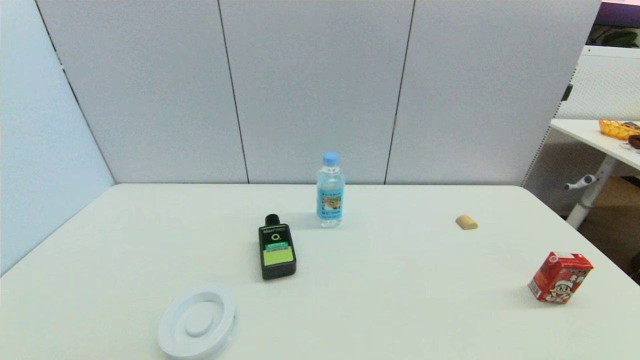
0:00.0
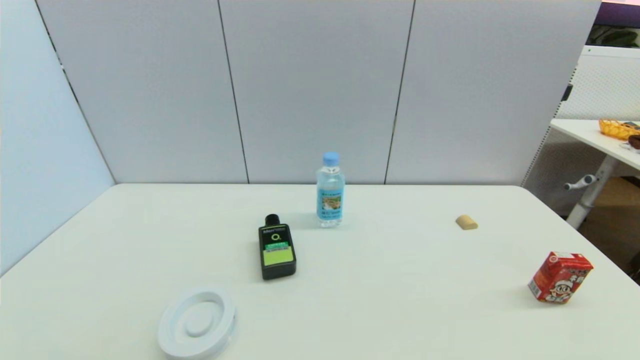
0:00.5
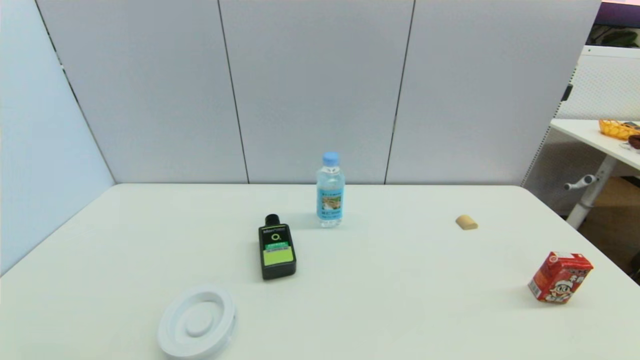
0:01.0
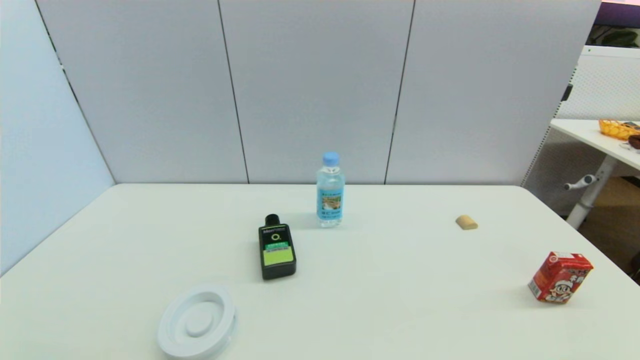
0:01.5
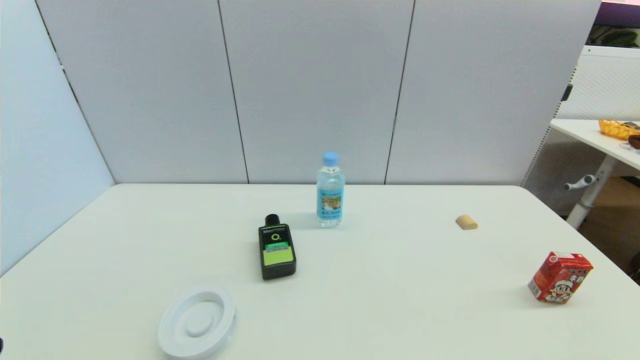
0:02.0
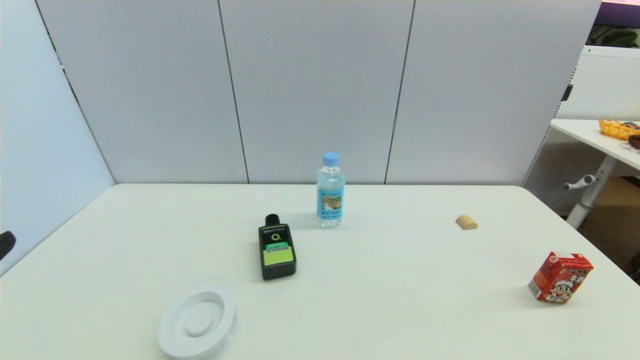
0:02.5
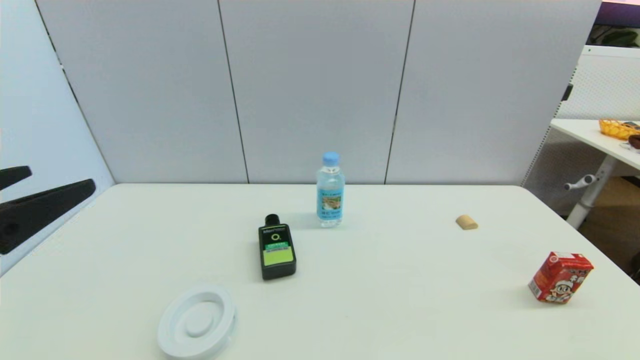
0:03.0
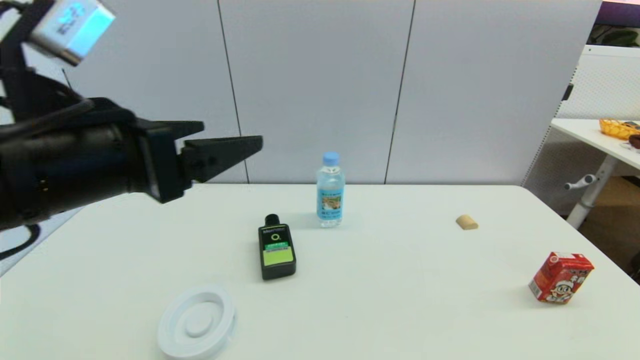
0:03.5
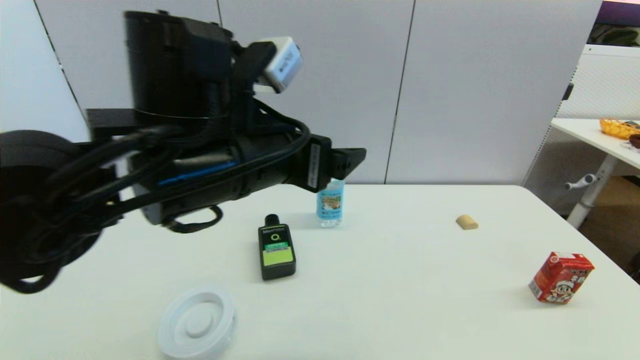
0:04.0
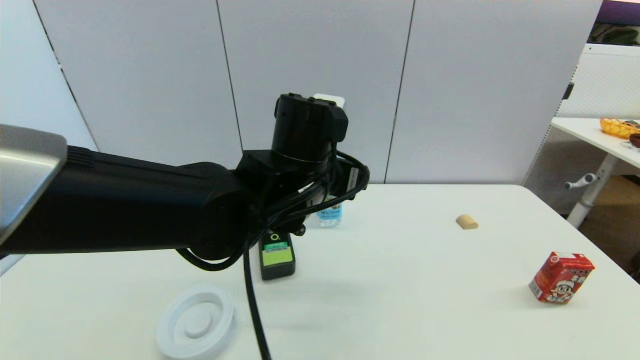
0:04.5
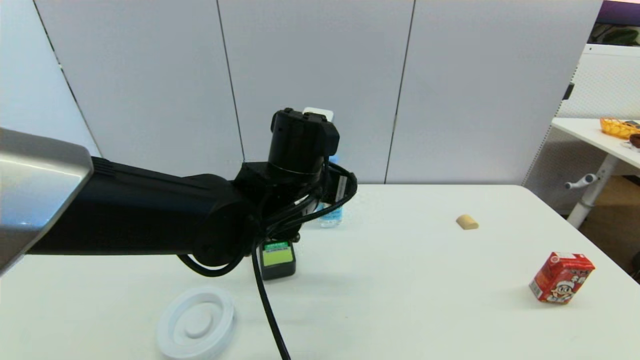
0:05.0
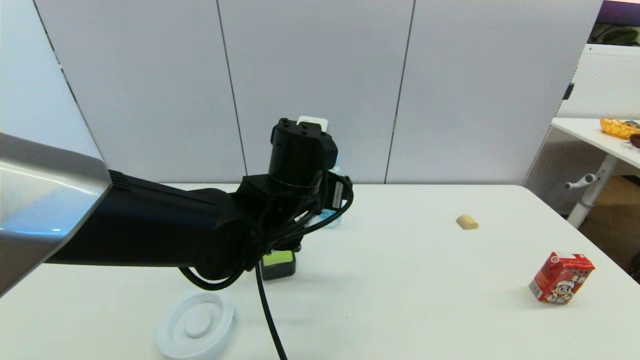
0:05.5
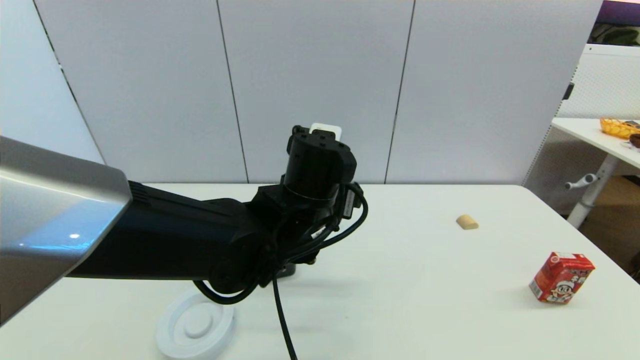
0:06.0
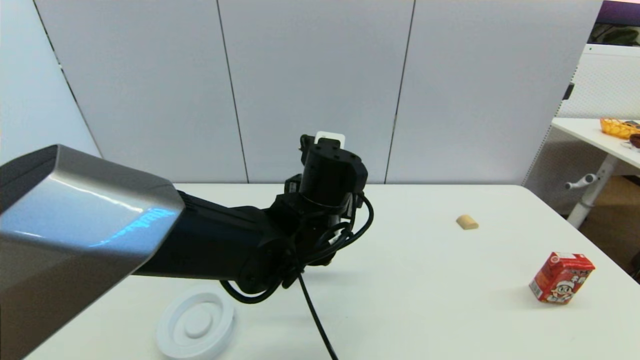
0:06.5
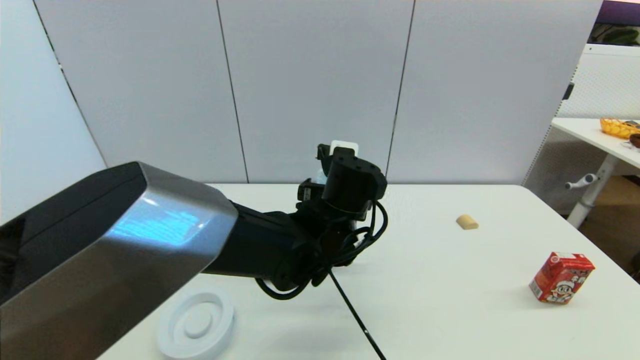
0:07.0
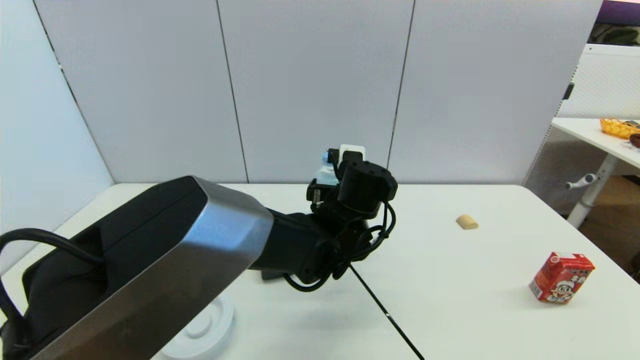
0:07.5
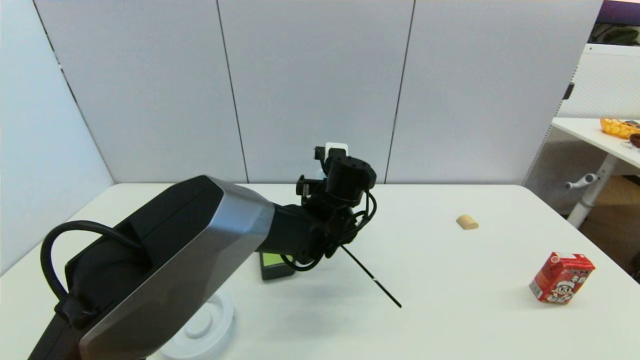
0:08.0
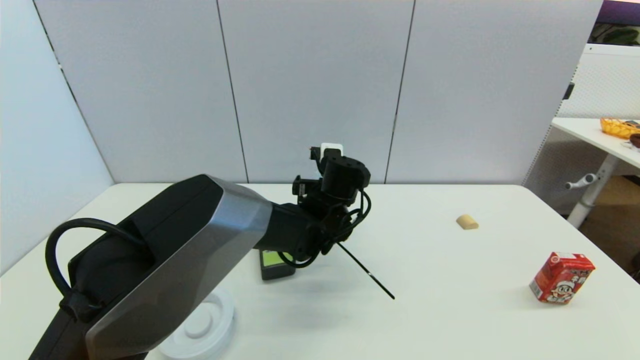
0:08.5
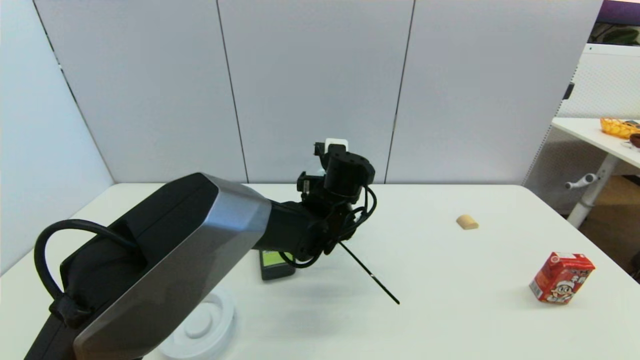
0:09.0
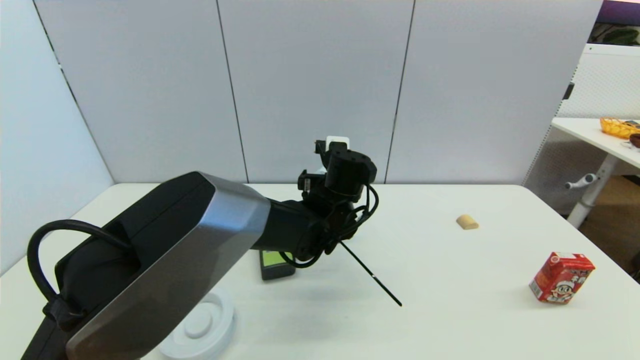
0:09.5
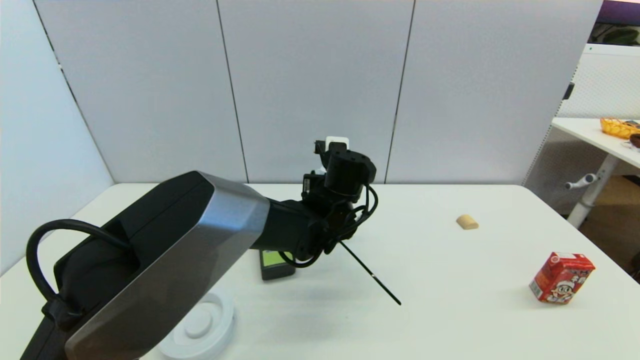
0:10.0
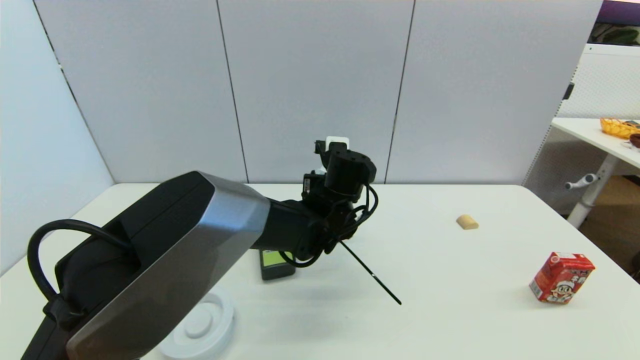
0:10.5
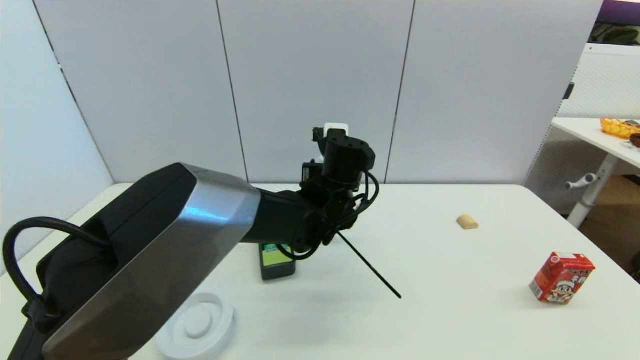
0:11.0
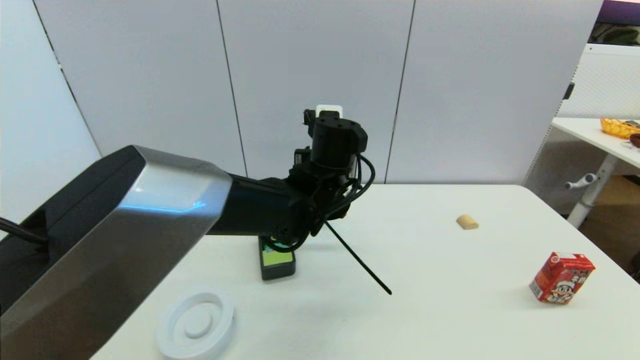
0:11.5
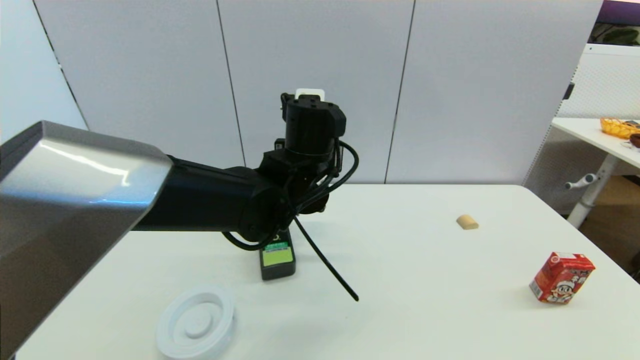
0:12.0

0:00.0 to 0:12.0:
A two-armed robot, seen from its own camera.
Step, 0:02.0 to 0:10.5: Grasp the soda water with left gripper.
0:02.0 to 0:04.0: The left gripper is displaced to the right, forward and upward by roughly 35 cm.
0:04.0 to 0:06.0: The left gripper is displaced downward and to the right by roughly 10 cm.
0:06.0 to 0:08.0: The left gripper is displaced forward and downward by approximately 10 cm.
0:08.0 to 0:10.0: The left gripper closes.
0:10.0 to 0:12.0: The left gripper moves upward, roughly 10 cm.

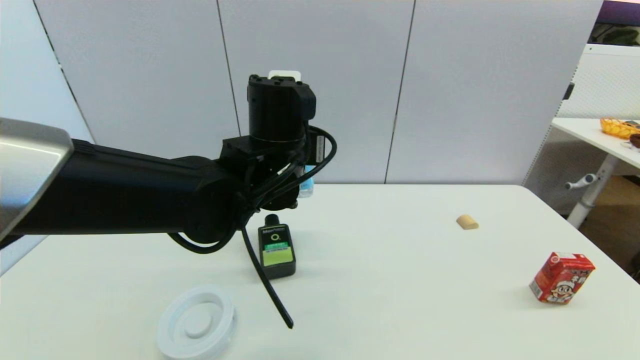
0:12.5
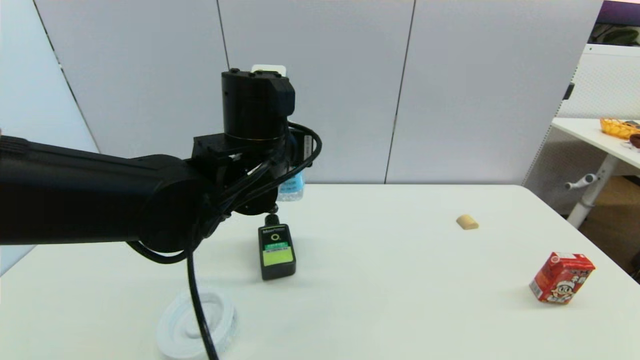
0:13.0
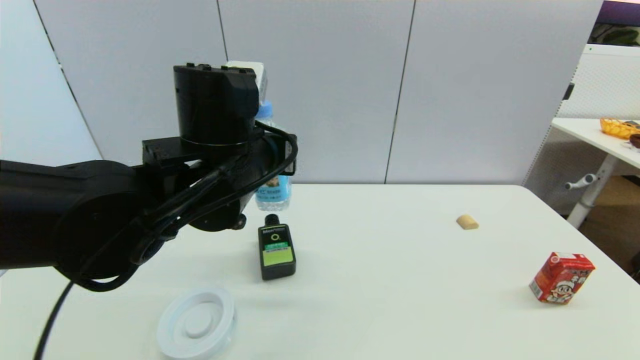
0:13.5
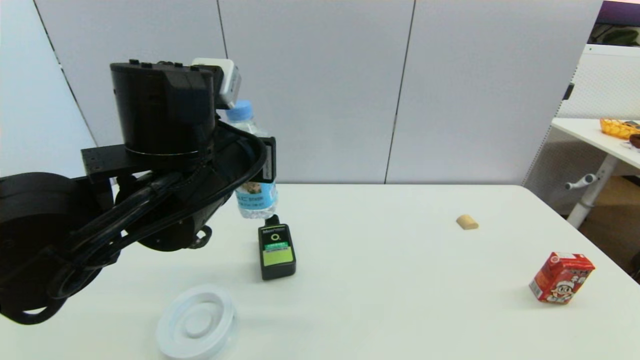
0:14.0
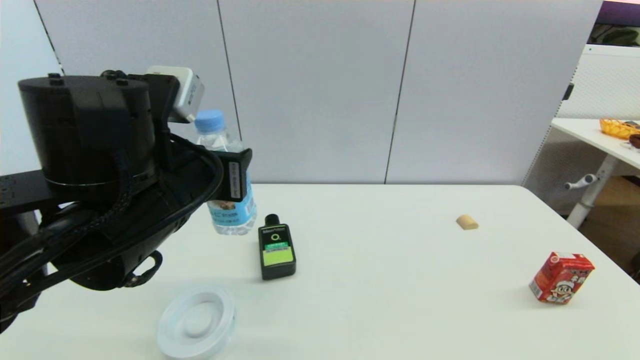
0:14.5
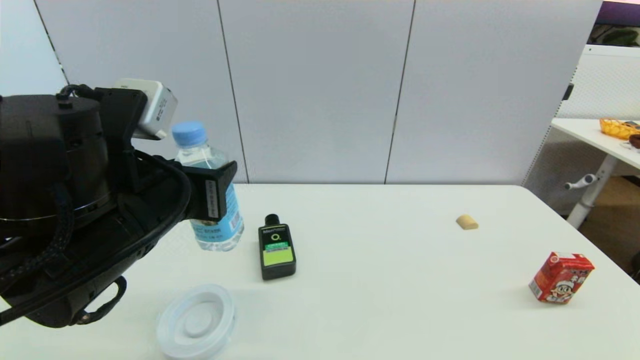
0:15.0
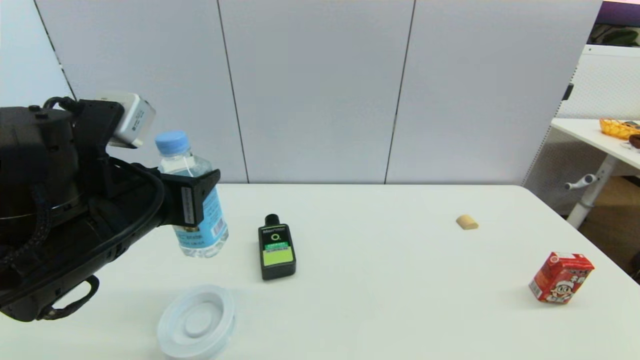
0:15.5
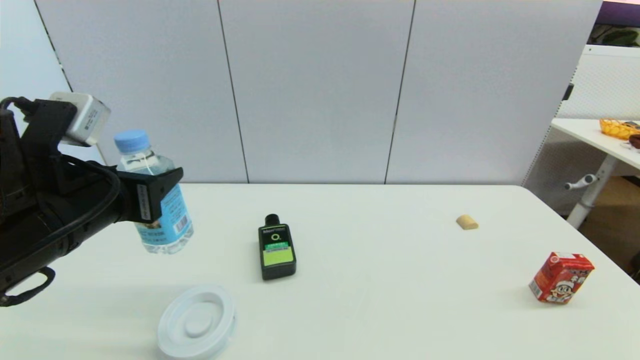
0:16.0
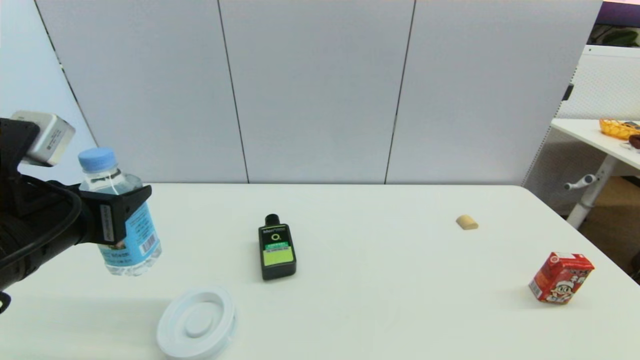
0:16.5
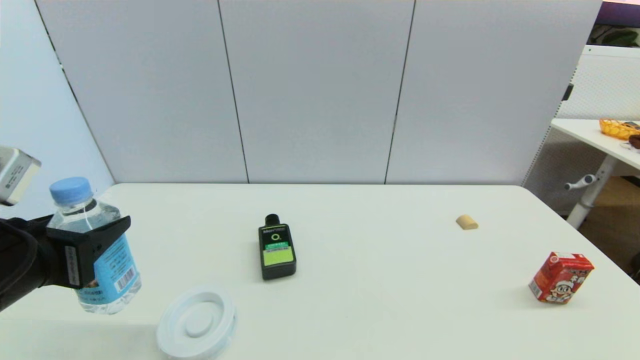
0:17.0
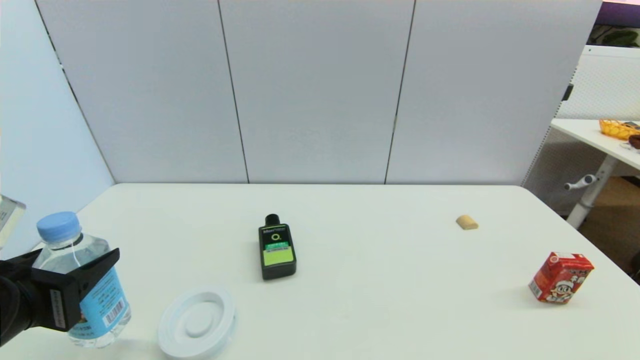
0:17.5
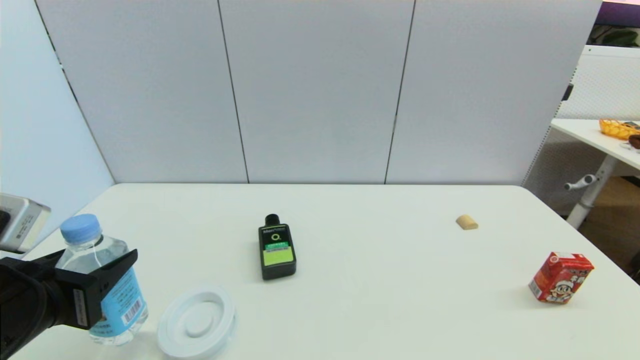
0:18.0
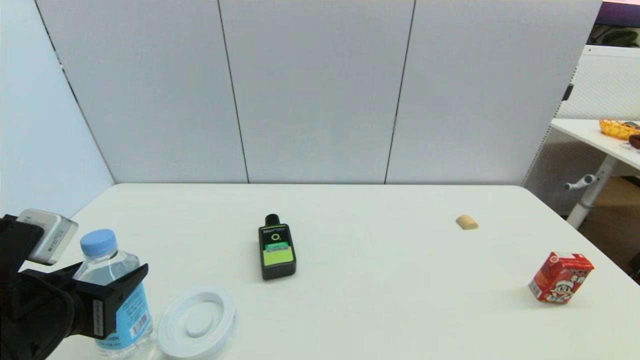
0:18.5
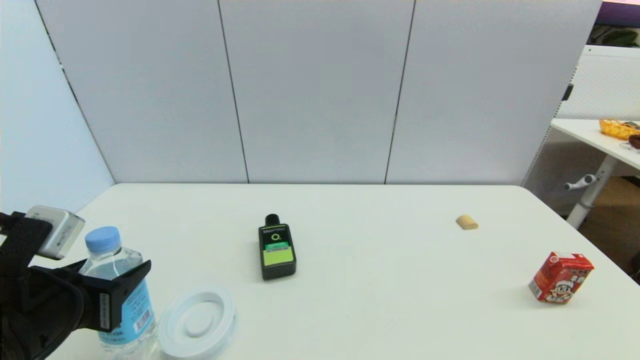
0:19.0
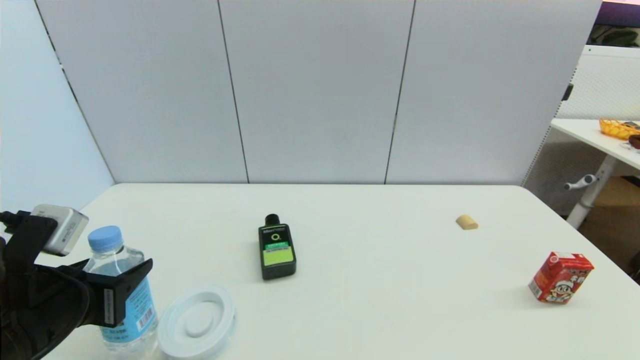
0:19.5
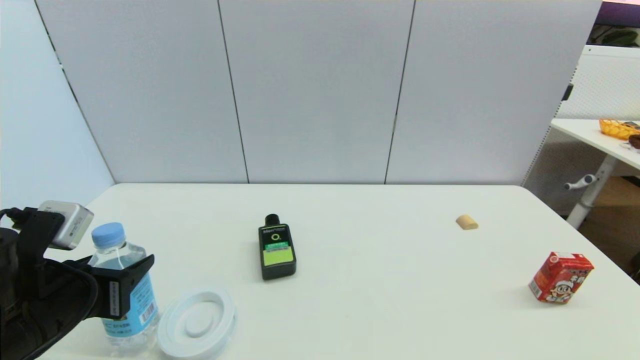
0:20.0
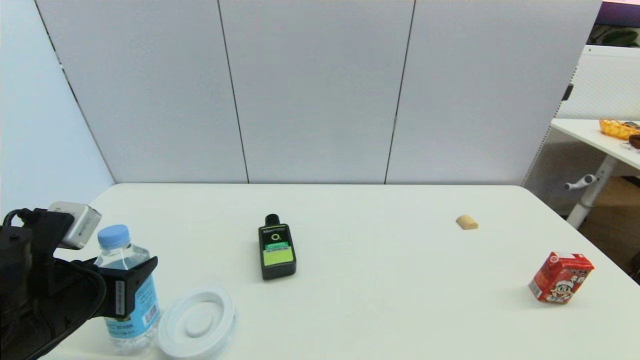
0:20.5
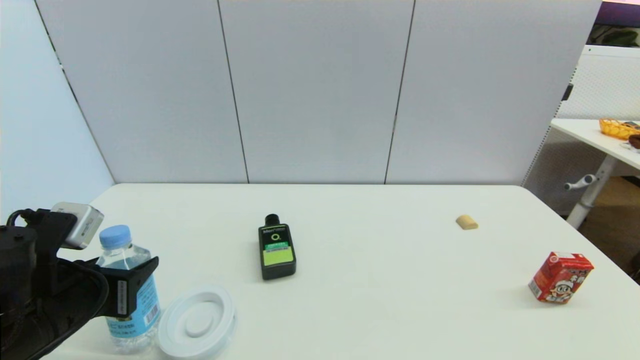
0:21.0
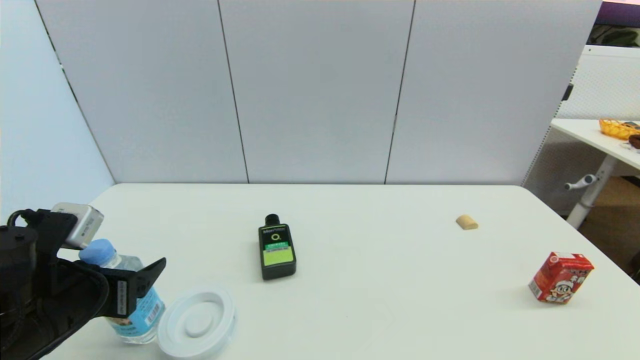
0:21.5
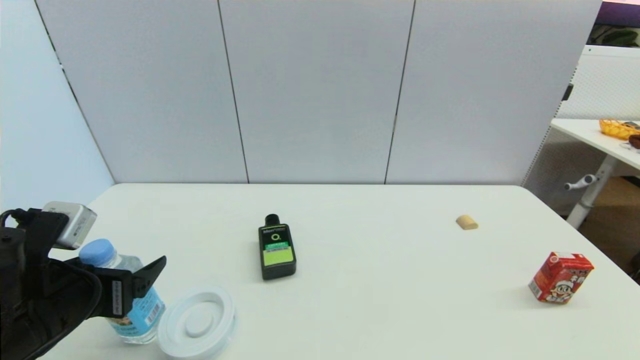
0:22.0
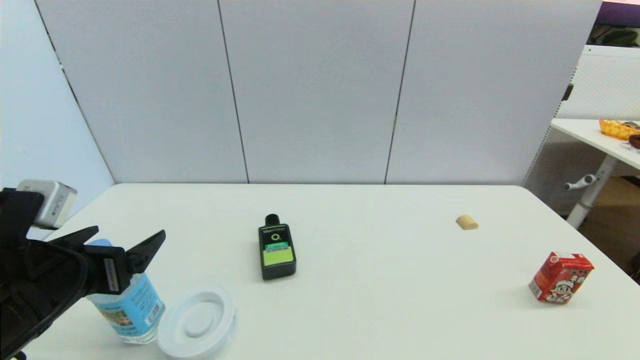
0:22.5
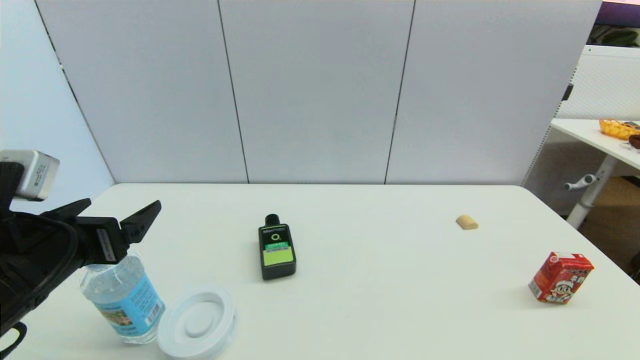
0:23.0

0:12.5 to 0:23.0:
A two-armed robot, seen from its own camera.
Step, 0:12.5 to 0:21.5: Place the soda water on the table with left gripper.
0:12.5 to 0:14.5: The left gripper goes some 15 cm backward and to the left.
0:14.5 to 0:16.5: The left gripper moves to the left, approximately 10 cm.
0:16.5 to 0:19.0: The left gripper shifts about 5 cm downward.
0:19.0 to 0:21.0: There are only small adjustments of the grippers.
0:21.0 to 0:23.0: The left gripper opens its fingers.
